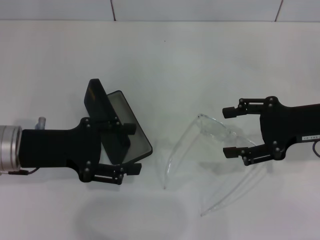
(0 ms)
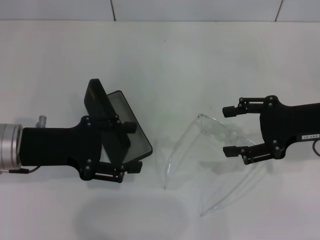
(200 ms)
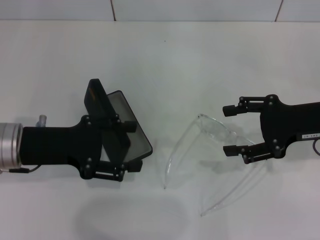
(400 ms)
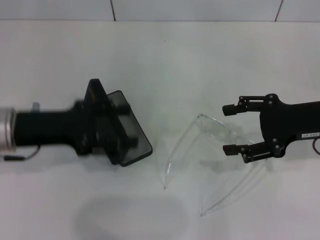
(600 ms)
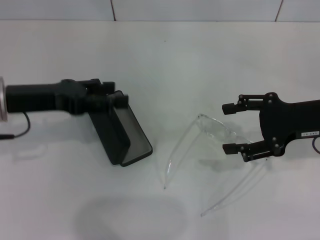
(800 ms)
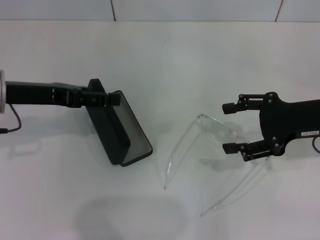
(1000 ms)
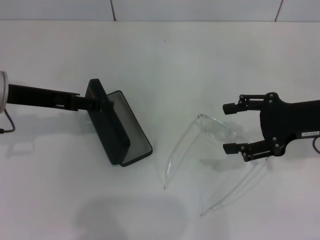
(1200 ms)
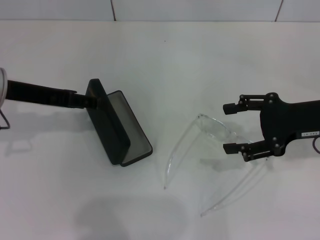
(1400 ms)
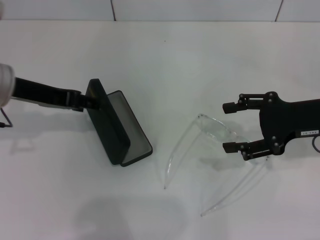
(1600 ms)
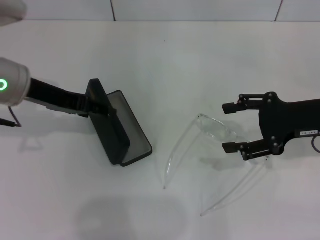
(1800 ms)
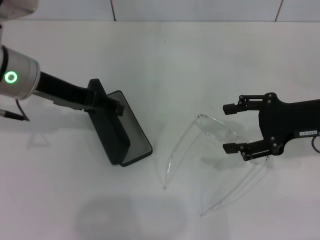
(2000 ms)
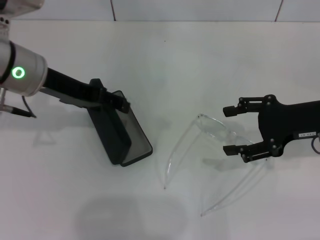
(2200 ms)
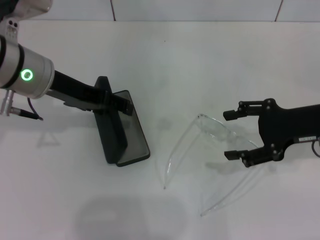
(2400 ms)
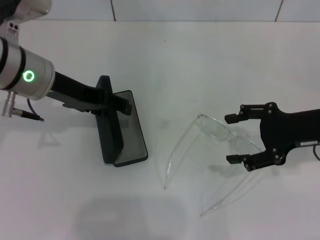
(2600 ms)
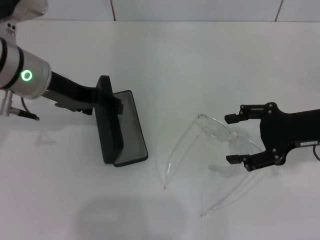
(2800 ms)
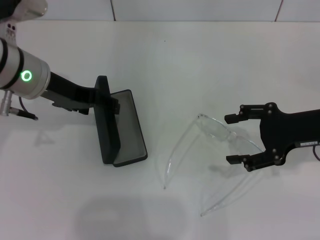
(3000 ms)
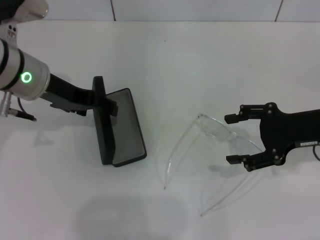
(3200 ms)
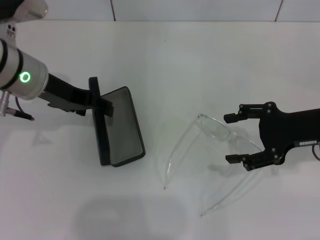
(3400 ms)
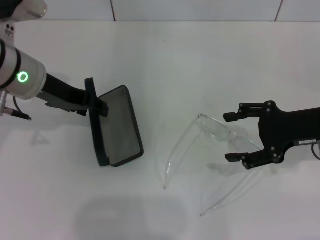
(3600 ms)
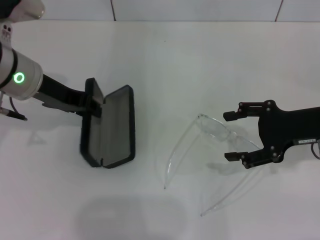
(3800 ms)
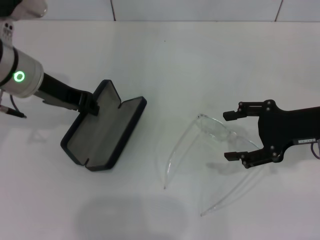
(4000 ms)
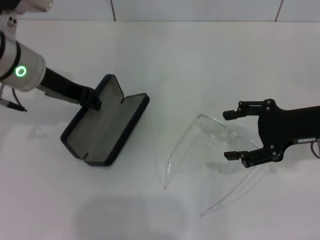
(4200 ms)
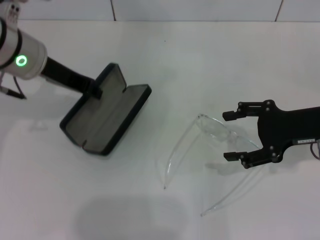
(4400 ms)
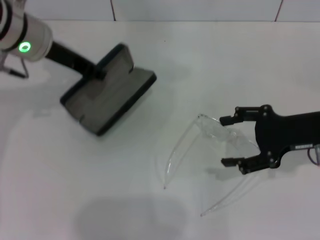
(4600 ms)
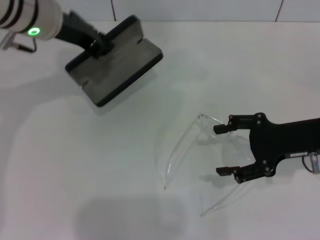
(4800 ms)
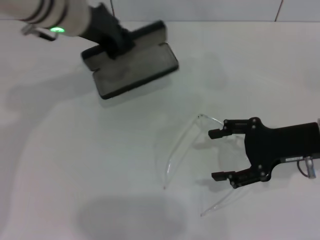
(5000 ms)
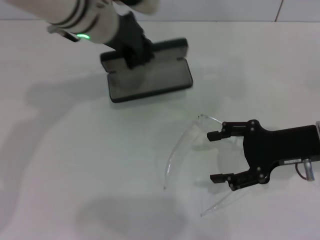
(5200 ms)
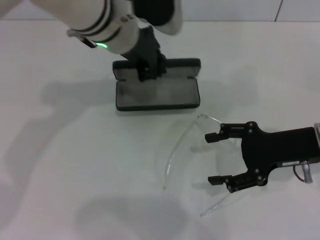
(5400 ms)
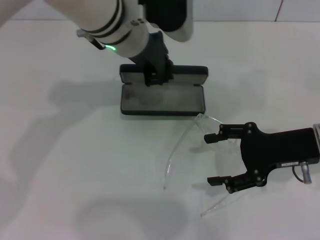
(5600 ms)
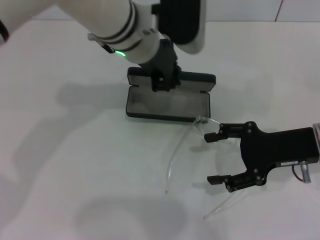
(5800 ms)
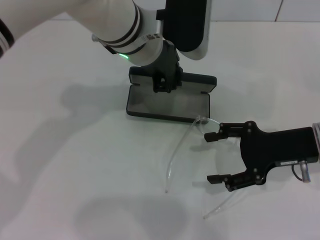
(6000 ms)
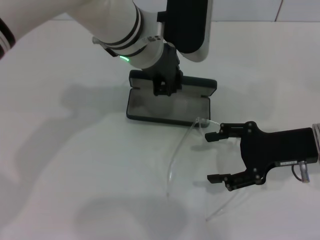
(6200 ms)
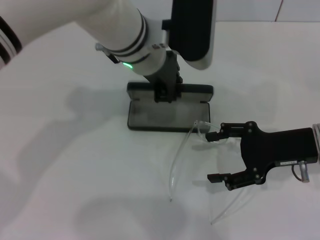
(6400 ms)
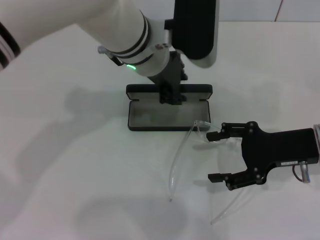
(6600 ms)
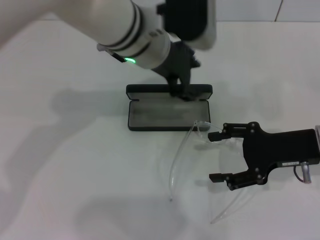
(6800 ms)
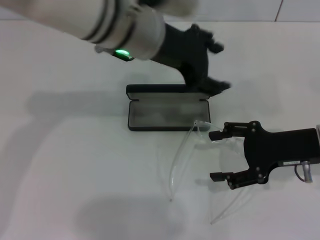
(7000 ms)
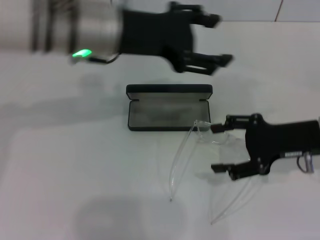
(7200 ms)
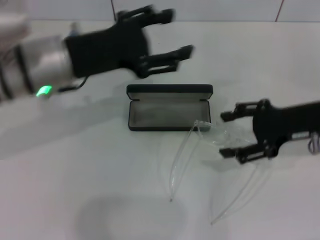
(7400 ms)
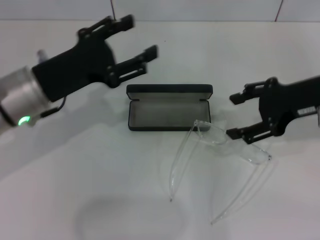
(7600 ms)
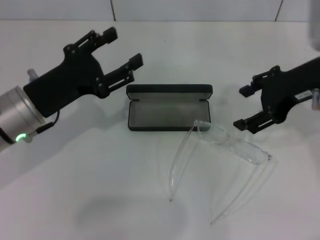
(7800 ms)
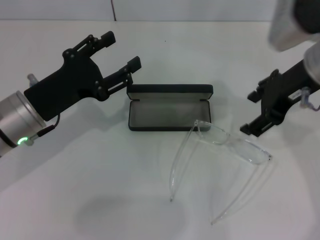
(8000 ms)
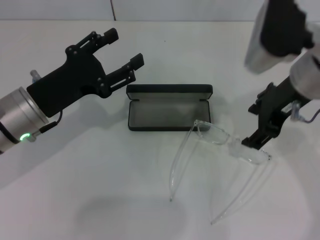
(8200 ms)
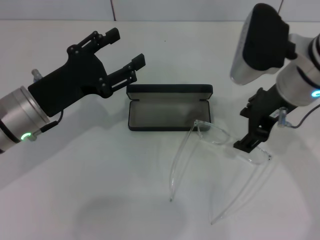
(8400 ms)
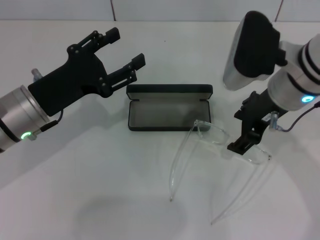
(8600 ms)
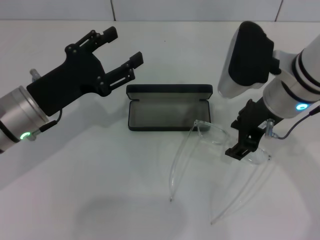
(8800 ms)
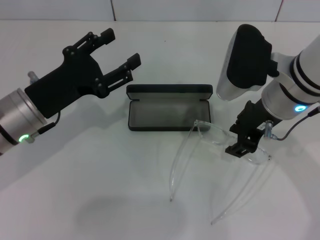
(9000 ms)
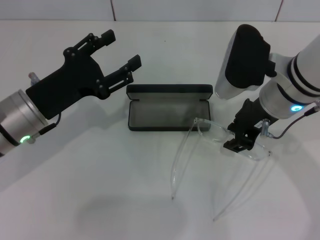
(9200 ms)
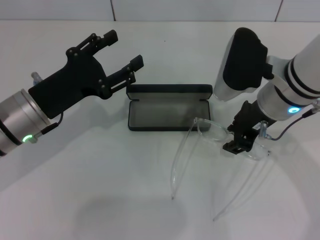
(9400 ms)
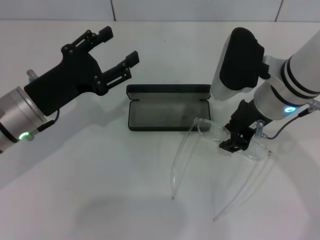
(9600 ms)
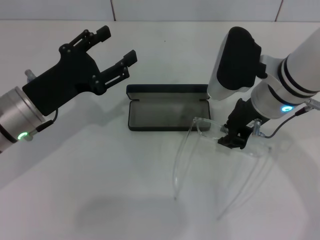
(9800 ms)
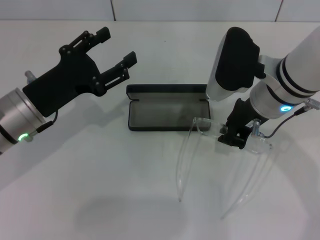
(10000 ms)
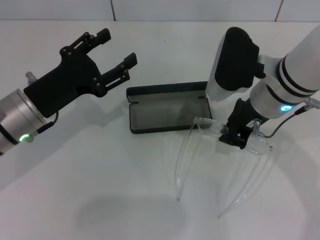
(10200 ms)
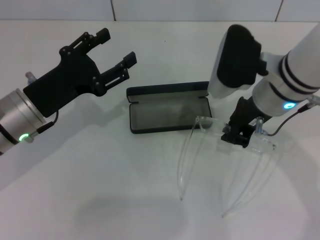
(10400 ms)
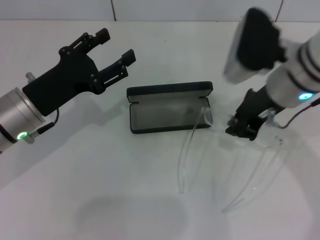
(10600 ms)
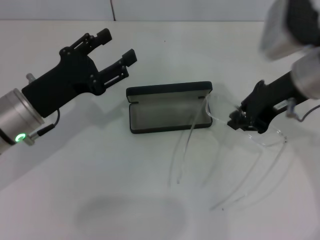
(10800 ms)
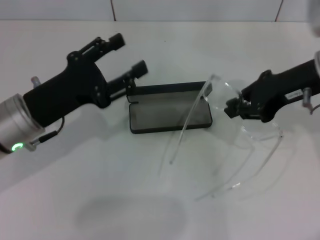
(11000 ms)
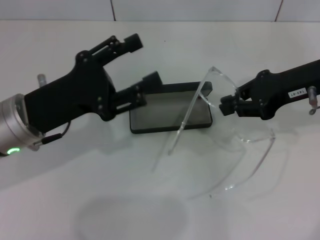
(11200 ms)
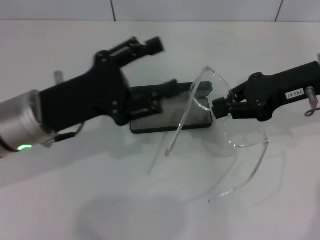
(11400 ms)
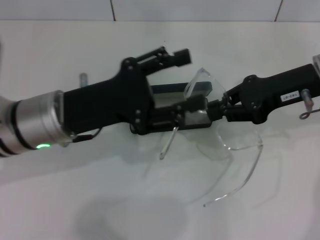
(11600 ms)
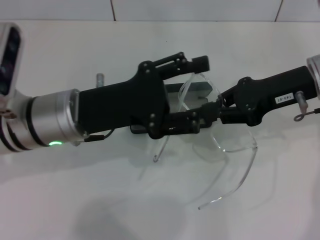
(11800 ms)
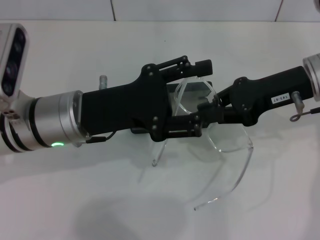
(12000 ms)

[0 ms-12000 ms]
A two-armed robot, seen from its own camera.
Step, 0 ms to 4000 ms: Grab the glasses case with your left hand.
Step, 4200 ms to 6400 ms: Place the glasses case in the center of the table with your left hand.
Step, 6600 ms to 10000 ms: Grab the eyeglass frame with your right hand.
0 ms to 1600 ms: The left gripper is displaced forward and upward by some 10 cm.
1600 ms to 3000 ms: The grippers make only small movements.
3000 ms to 4400 ms: The left gripper closes.
4400 ms to 6000 ms: The left gripper goes approximately 15 cm to the right.
6000 ms to 7600 ms: The right gripper goes about 10 cm upward; the left gripper moves to the left and backward, about 20 cm, and opens up.
7600 ms to 9000 ms: The right gripper travels to the left by about 10 cm.
9000 ms to 10400 ms: The right gripper closes.
10400 ms to 12000 ms: Both grippers travel together to the right, about 5 cm.

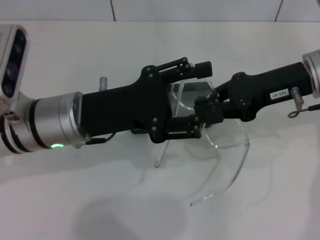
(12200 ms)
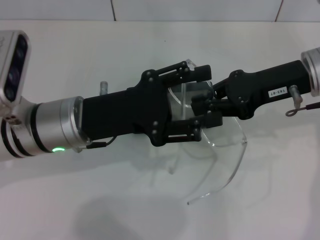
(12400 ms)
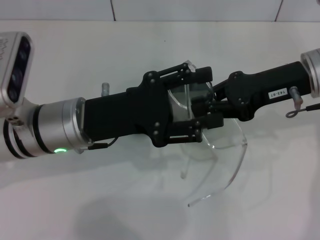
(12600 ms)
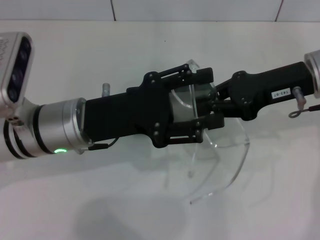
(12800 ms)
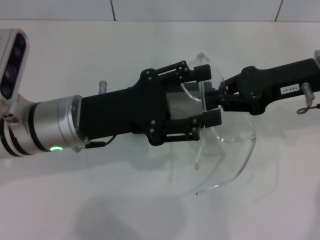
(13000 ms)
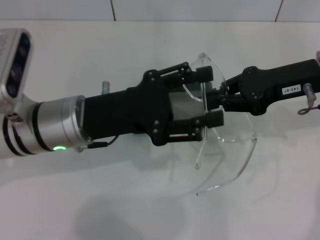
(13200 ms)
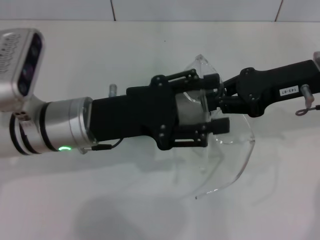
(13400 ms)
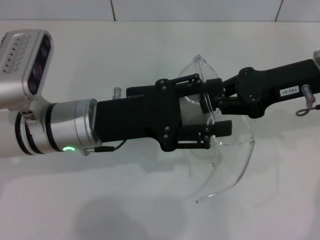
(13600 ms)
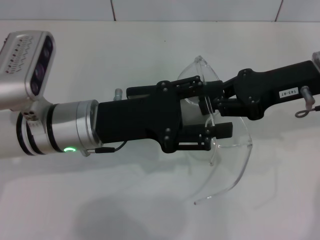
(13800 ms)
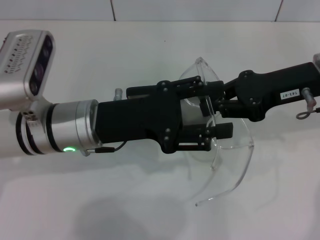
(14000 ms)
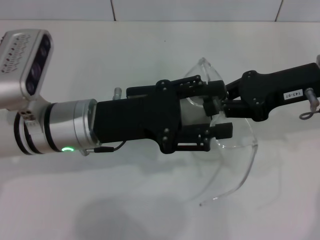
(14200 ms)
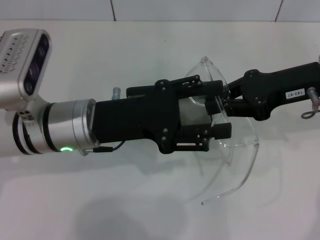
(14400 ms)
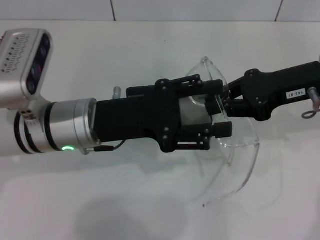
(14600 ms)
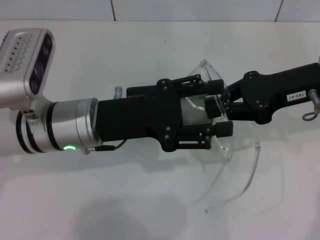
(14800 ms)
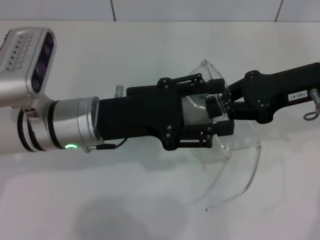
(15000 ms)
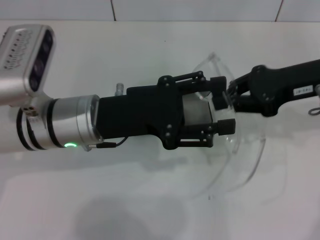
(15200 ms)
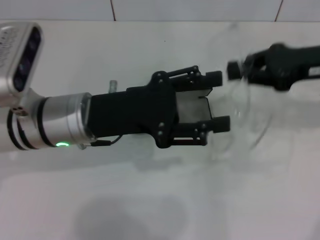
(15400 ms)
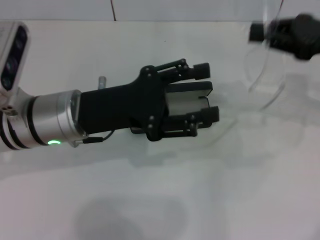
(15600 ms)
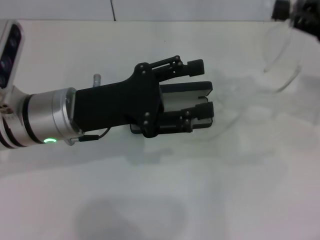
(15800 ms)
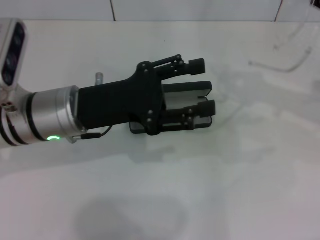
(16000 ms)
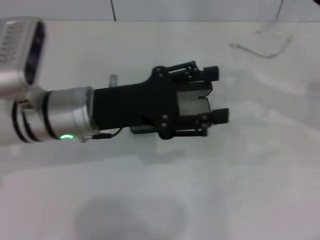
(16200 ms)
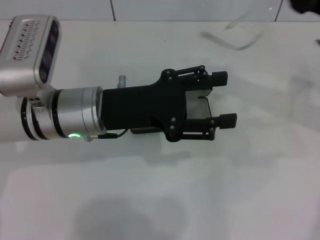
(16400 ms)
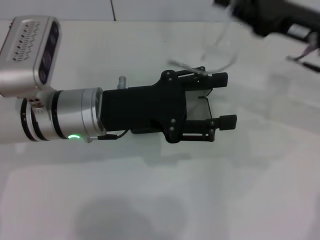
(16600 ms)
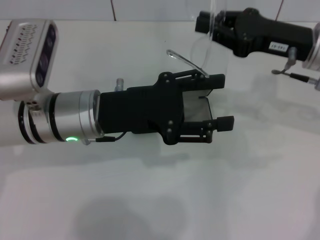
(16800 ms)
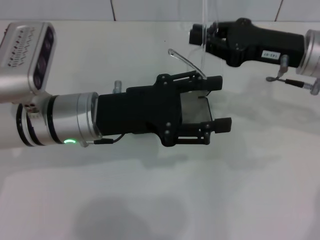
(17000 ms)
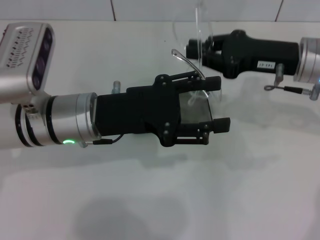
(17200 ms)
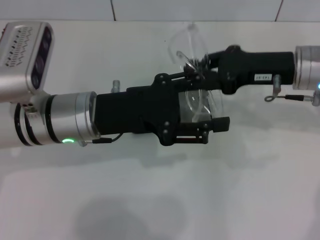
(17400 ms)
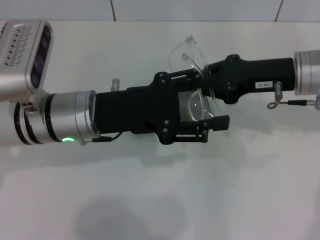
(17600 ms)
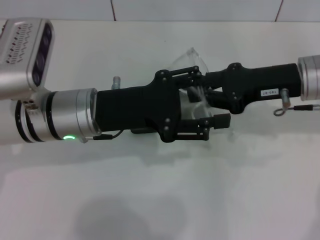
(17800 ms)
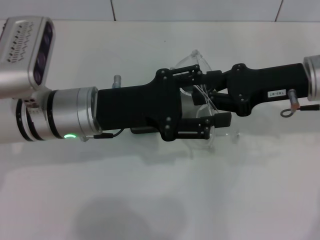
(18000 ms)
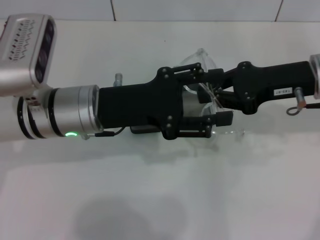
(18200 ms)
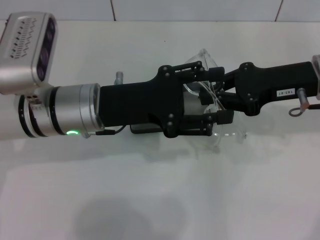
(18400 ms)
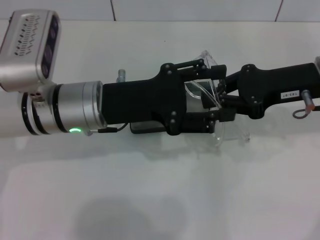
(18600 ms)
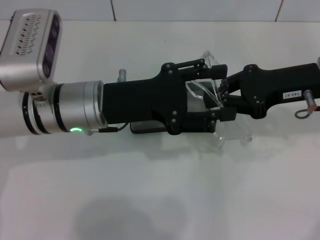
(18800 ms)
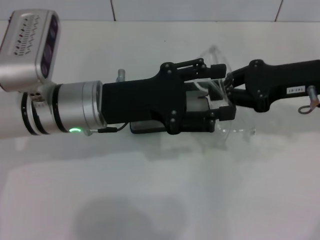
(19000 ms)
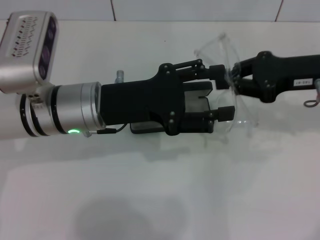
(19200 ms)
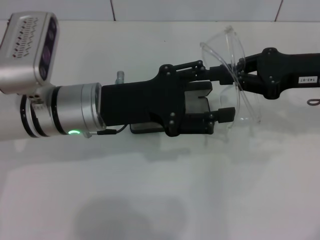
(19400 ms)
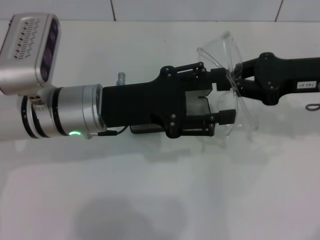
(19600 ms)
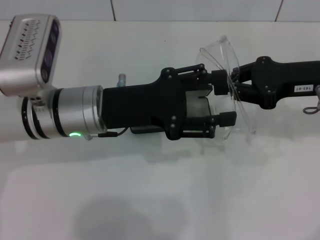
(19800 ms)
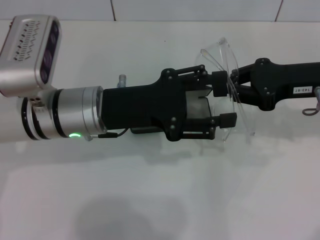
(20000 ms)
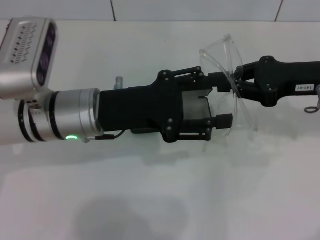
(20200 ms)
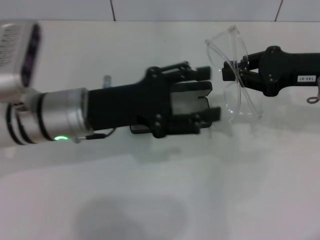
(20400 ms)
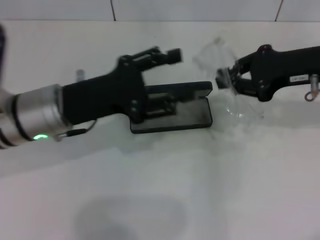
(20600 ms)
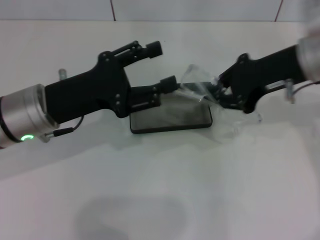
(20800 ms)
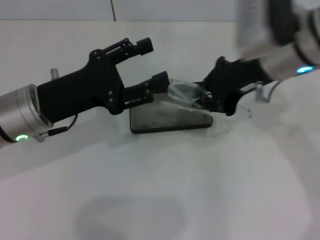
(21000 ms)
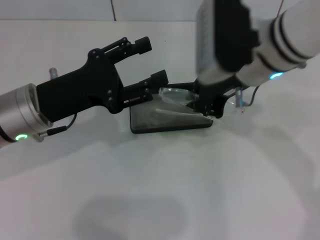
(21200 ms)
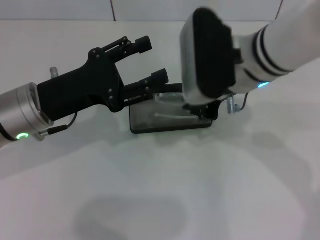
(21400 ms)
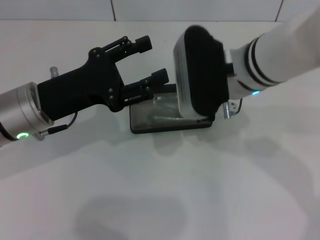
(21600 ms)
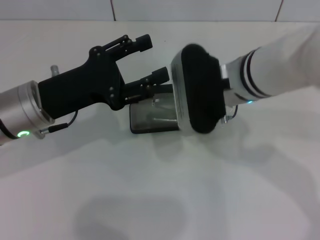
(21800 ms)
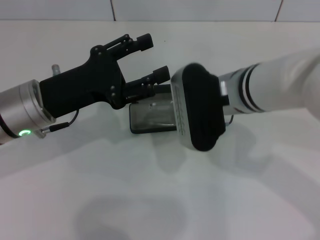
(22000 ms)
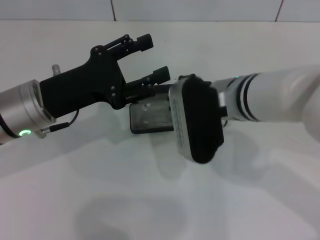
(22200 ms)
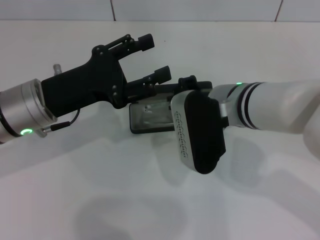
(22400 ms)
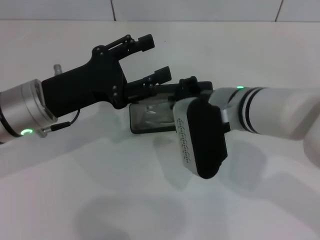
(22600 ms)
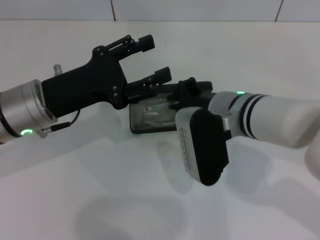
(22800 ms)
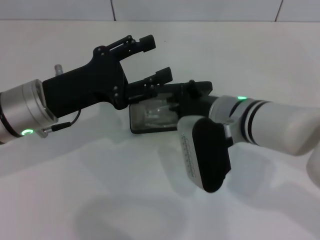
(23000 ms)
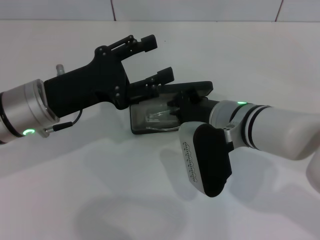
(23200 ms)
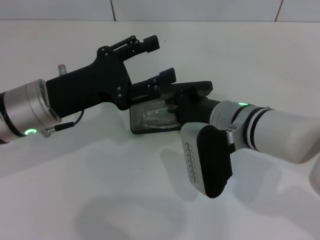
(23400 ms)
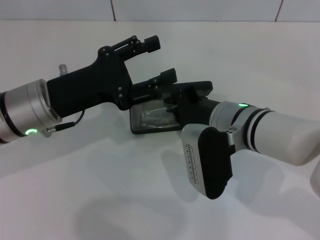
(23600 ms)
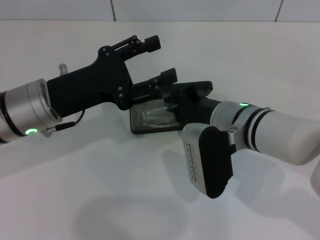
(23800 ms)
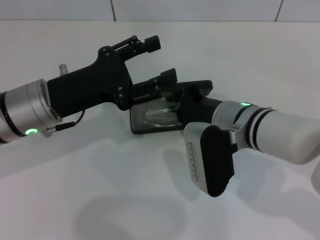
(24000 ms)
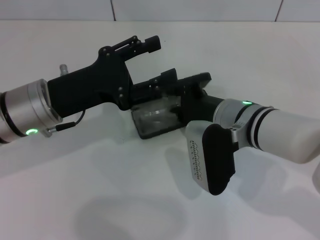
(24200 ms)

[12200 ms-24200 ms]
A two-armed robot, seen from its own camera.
Step, 12200 ms to 19800 ms: Lift the glasses with your right hand.
12200 ms to 15200 ms: The grippers move only a little.
15200 ms to 16600 ms: The right gripper goes to the right and returns, approximately 10 cm each way.
18200 ms to 19800 ms: The grippers stay close to where they were, moving slightly.
19800 ms to 21200 ms: The left gripper travels to the left by some 5 cm, while the right gripper shifts about 15 cm to the left.
21200 ms to 22600 ms: The right gripper is displaced downward by roughly 10 cm.
22600 ms to 24200 ms: The grippers make only small movements.
